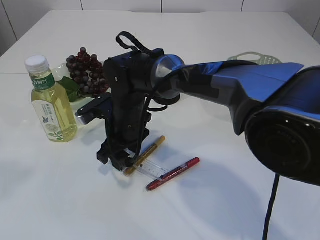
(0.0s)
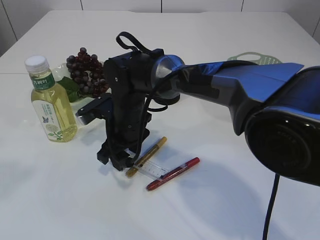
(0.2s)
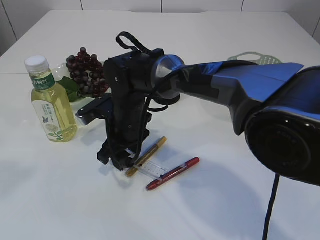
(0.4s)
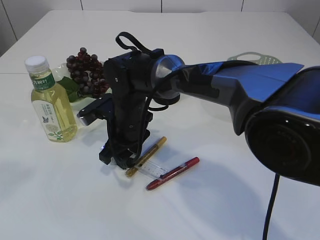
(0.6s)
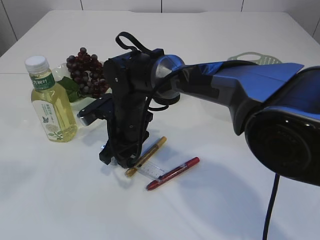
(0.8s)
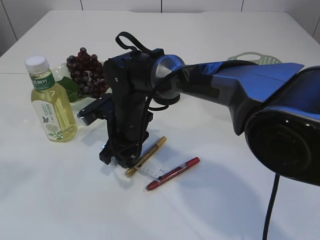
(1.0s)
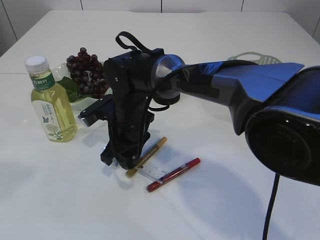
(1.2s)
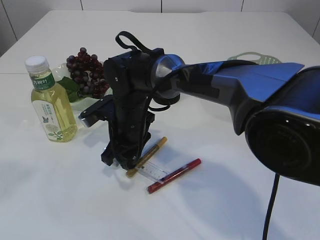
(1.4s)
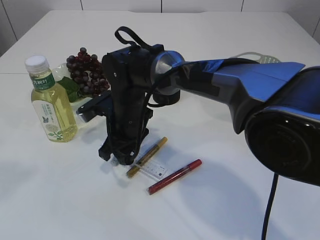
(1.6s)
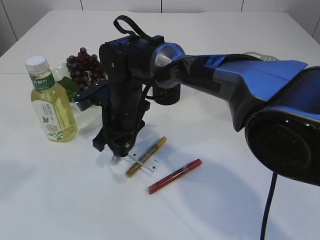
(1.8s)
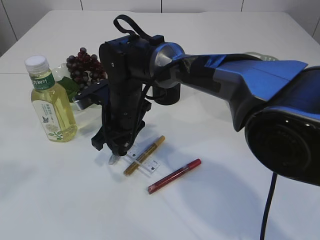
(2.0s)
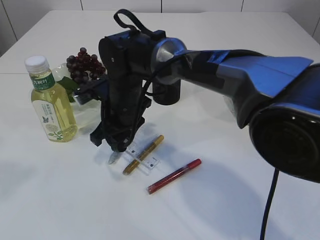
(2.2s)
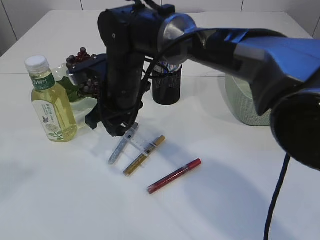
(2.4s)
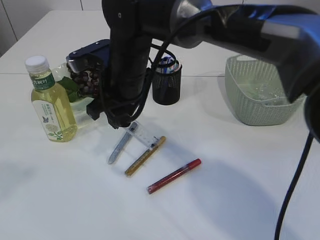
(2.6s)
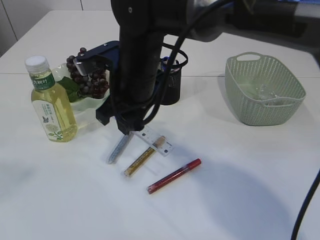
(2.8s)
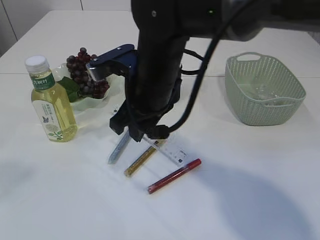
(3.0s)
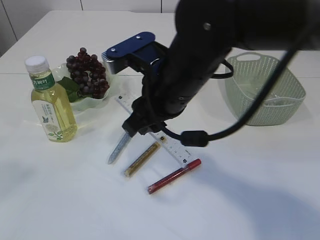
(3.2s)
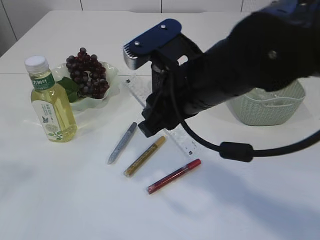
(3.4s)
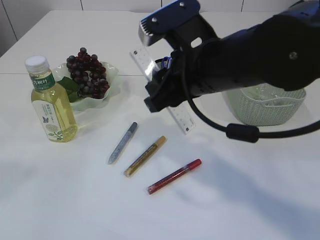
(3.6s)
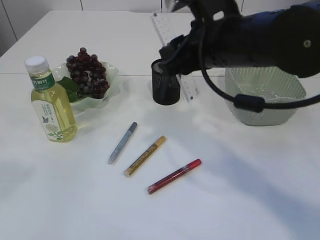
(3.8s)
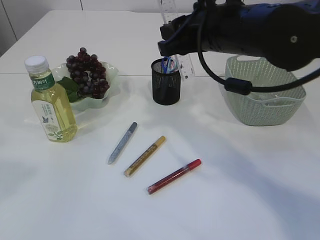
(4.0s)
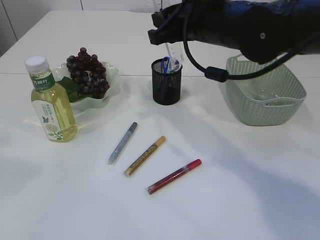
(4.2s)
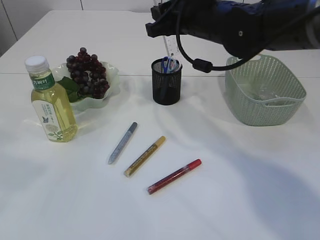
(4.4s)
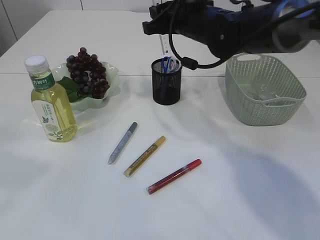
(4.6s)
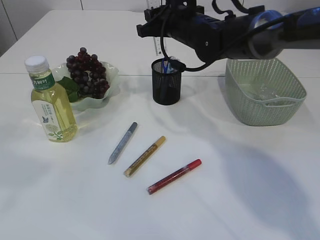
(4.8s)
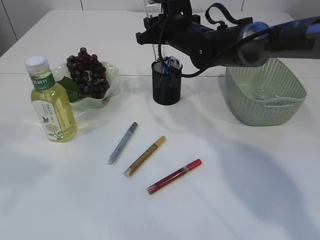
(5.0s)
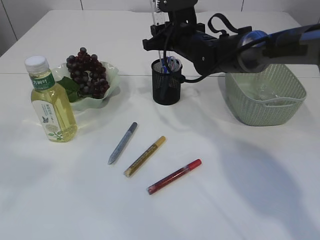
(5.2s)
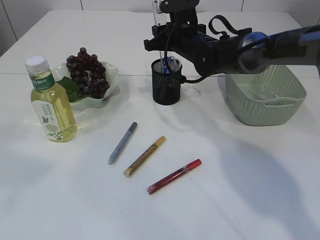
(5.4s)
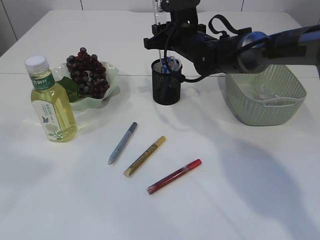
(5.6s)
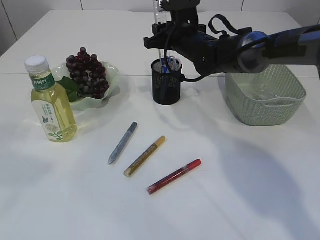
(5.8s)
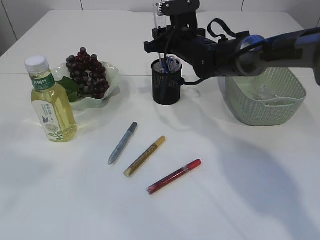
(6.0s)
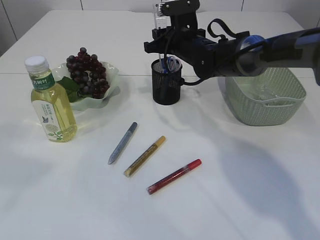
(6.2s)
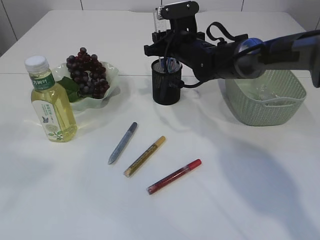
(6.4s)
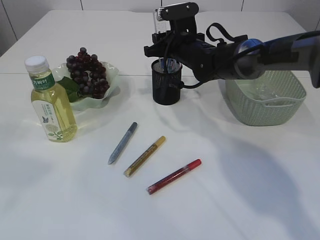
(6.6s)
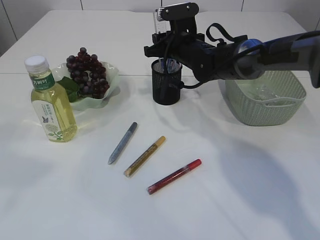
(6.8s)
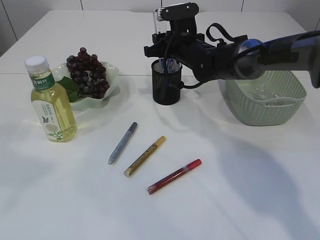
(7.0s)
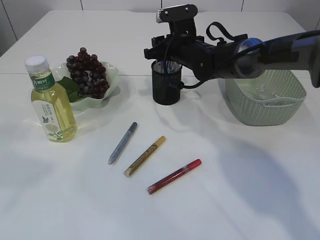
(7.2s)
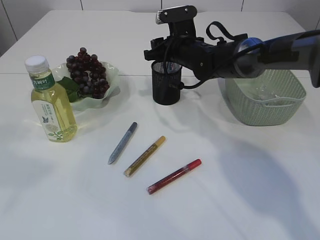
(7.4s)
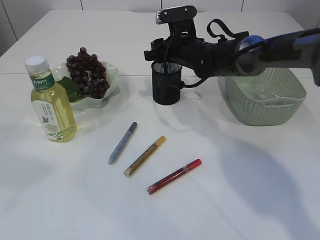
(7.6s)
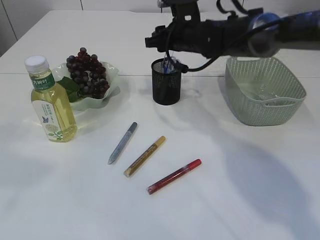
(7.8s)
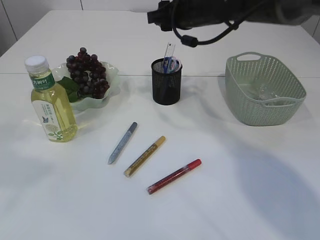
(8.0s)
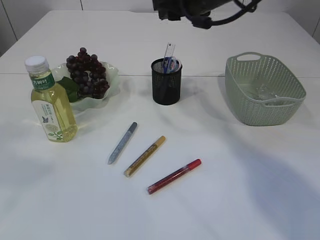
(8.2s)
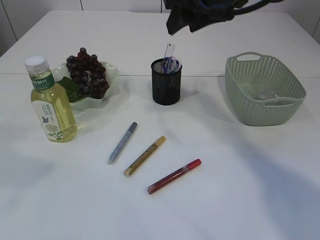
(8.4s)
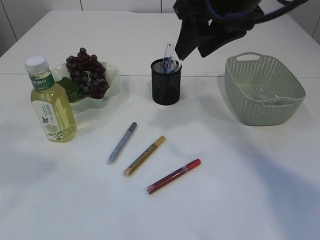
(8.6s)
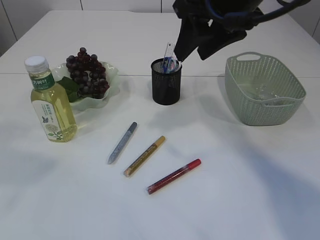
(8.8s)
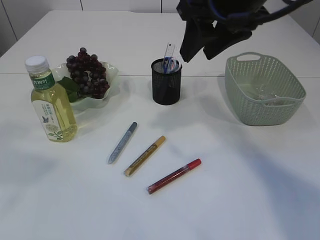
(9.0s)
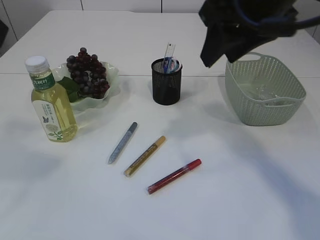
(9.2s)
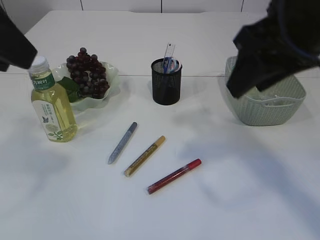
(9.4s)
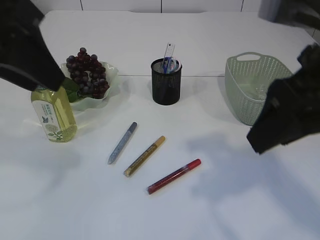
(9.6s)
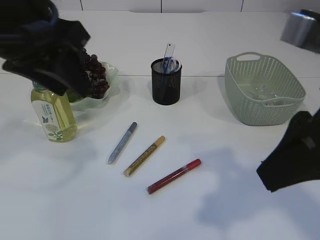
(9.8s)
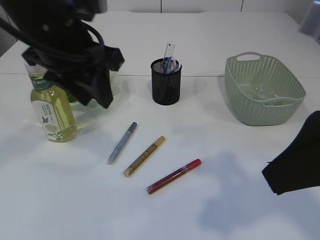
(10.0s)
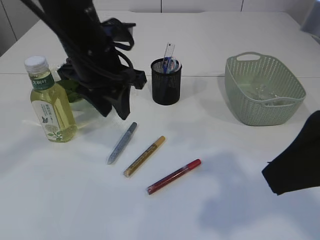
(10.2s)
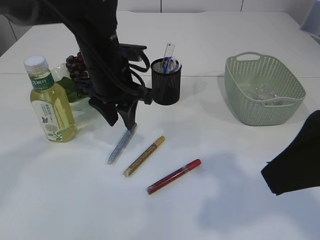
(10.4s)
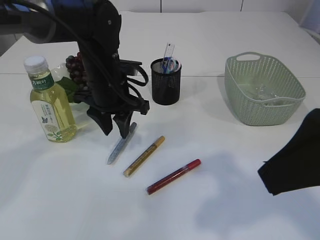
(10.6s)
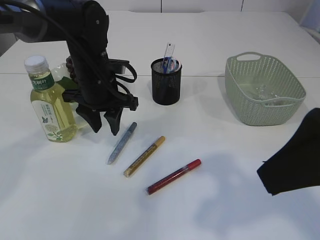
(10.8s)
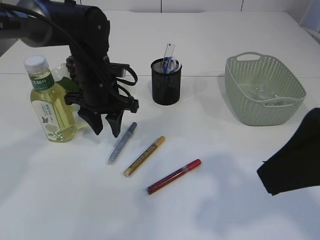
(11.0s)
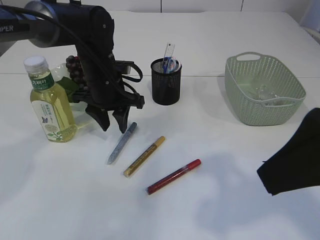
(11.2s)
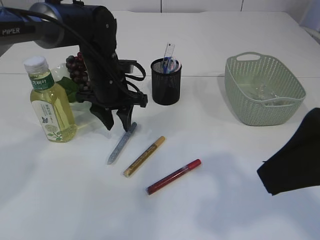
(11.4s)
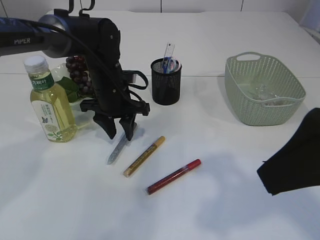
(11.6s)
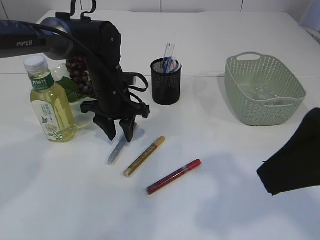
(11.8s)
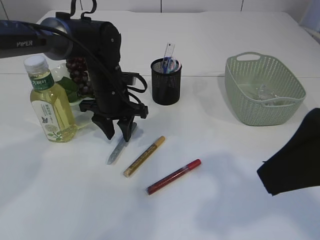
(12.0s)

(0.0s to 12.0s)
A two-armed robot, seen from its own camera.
Step, 0.0s - 2.4s: pick up the ruler.
Step, 2.6s - 8.0s: Place the ruler into the pen holder.
0.0s - 1.6s: Both grippers stay about where they are.
1.6s - 3.0s: The right gripper heads upward and backward, covering approximately 10 cm.
3.0s - 4.4s: The right gripper heads to the right and forward, covering approximately 10 cm.
4.4s - 6.0s: The right gripper moves forward and downward, about 15 cm.
6.0s - 7.6s: The grippers stay close to where they were, moving slightly.
7.6s - 9.0s: The right gripper shifts some 25 cm upward and backward.
9.0s - 10.4s: The left gripper heads downward, forward and to the right, covering some 30 cm; the right gripper travels backward by some 20 cm.
10.4s - 12.0s: The left gripper travels downward and forward by some 10 cm.

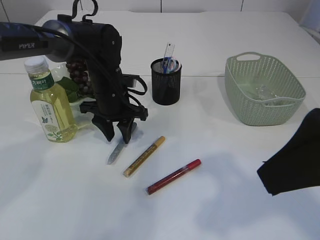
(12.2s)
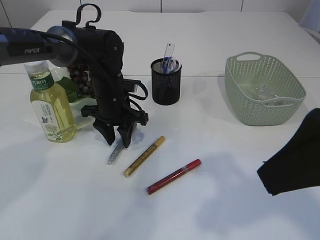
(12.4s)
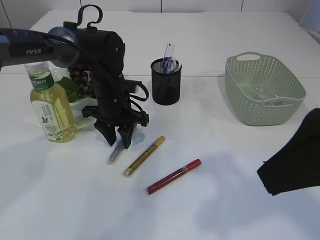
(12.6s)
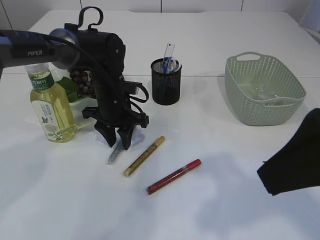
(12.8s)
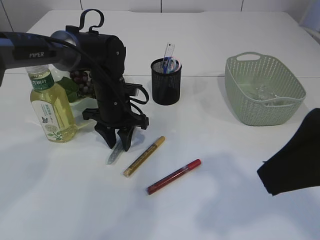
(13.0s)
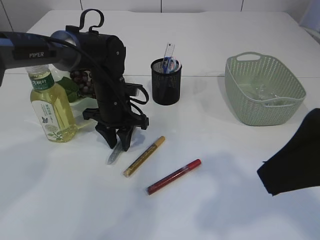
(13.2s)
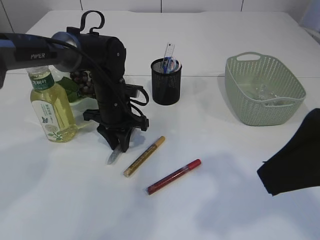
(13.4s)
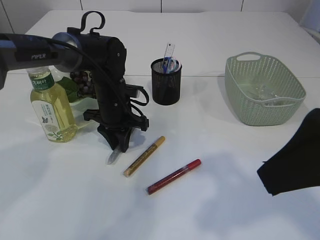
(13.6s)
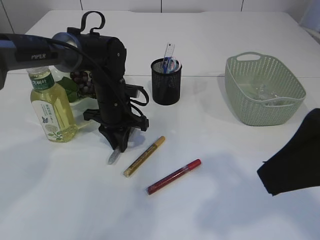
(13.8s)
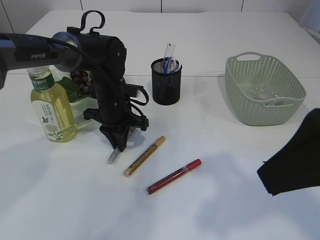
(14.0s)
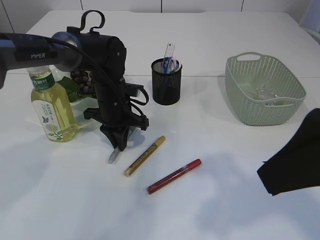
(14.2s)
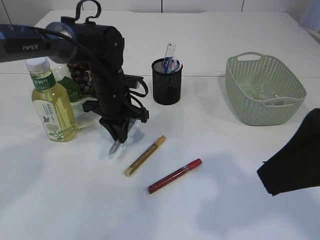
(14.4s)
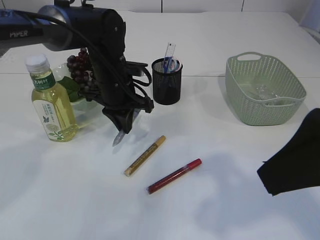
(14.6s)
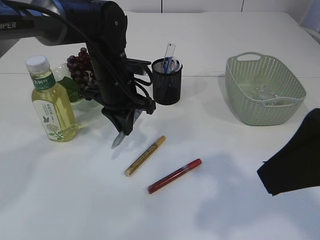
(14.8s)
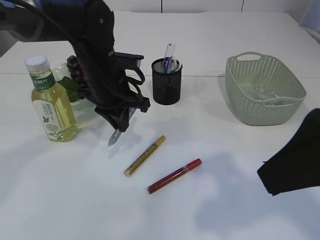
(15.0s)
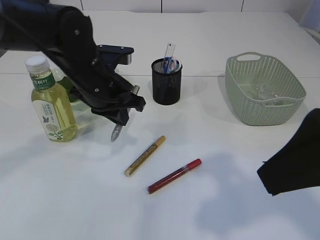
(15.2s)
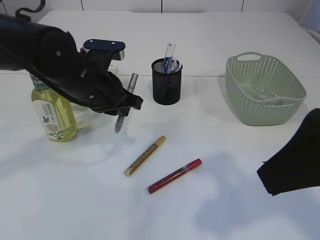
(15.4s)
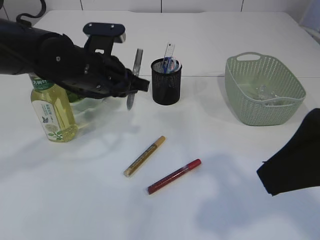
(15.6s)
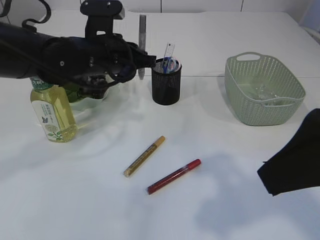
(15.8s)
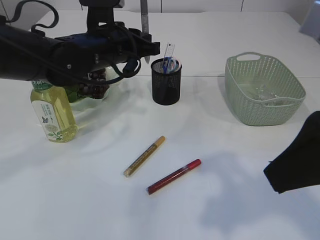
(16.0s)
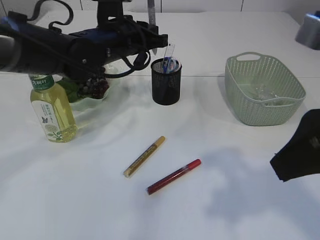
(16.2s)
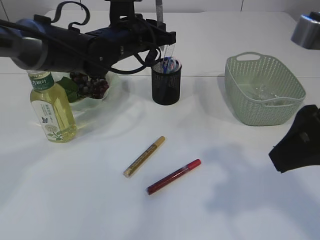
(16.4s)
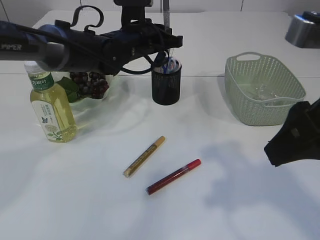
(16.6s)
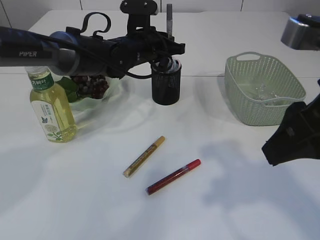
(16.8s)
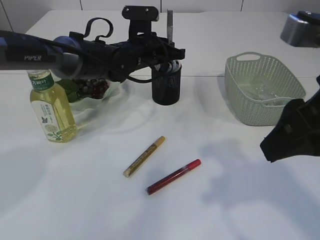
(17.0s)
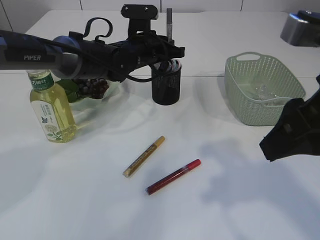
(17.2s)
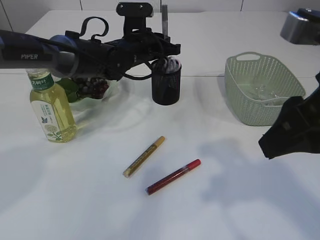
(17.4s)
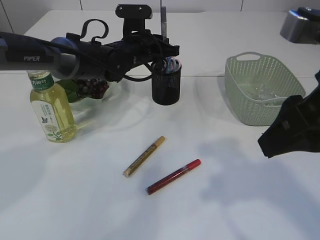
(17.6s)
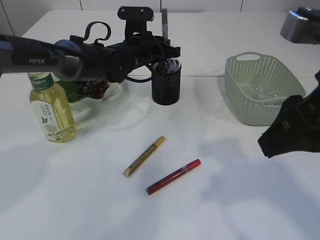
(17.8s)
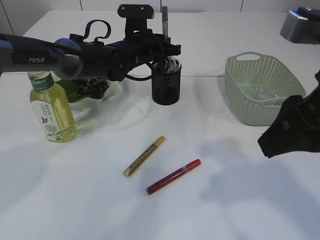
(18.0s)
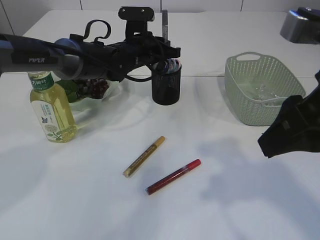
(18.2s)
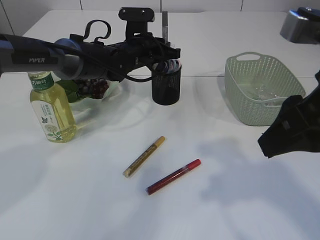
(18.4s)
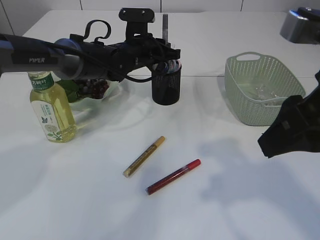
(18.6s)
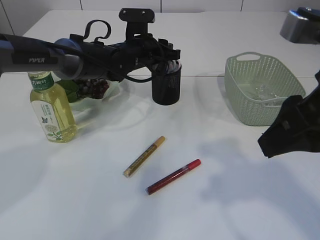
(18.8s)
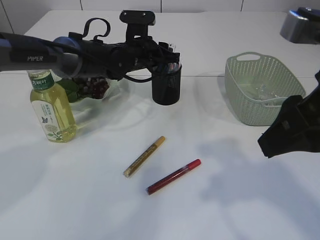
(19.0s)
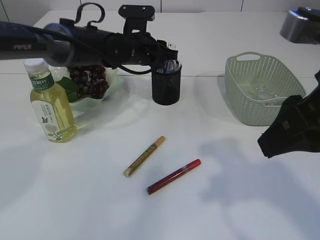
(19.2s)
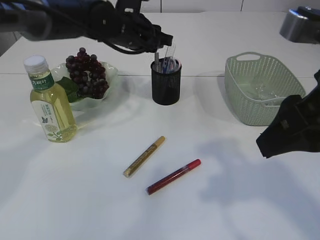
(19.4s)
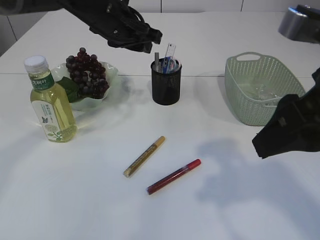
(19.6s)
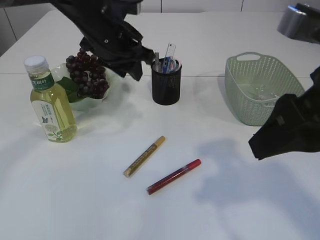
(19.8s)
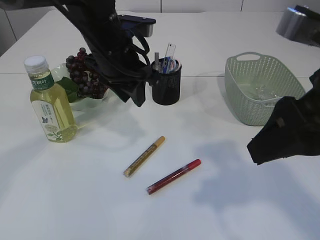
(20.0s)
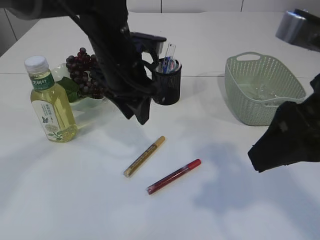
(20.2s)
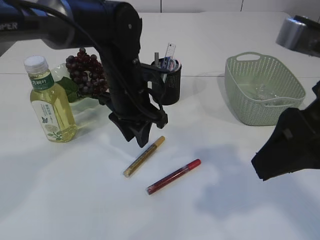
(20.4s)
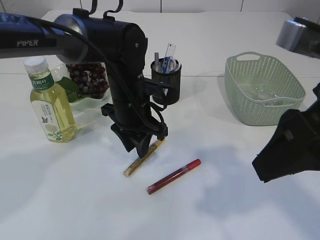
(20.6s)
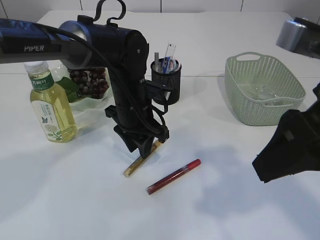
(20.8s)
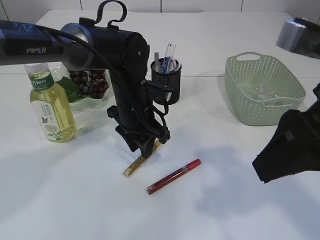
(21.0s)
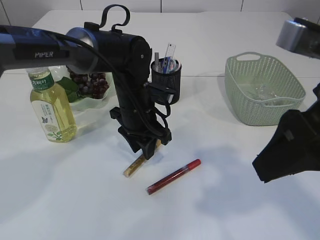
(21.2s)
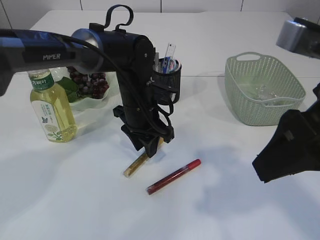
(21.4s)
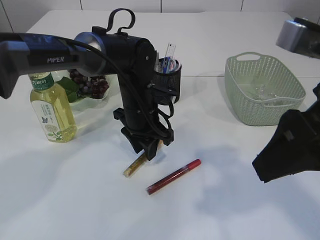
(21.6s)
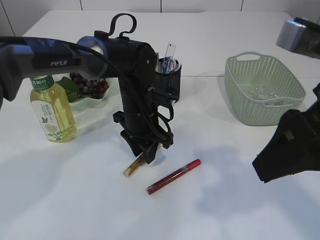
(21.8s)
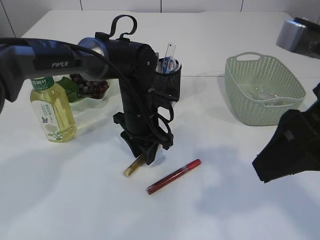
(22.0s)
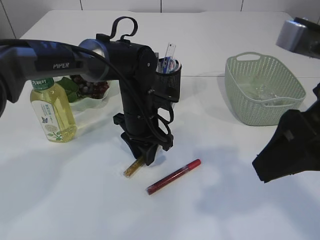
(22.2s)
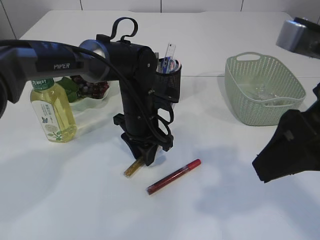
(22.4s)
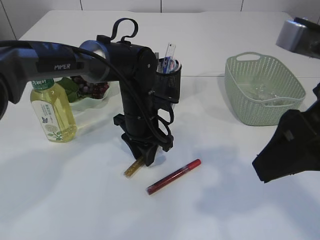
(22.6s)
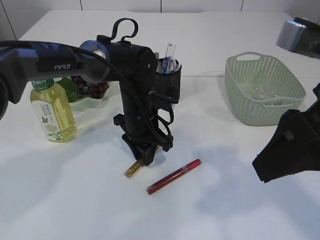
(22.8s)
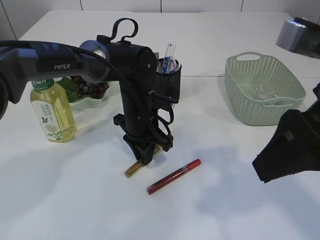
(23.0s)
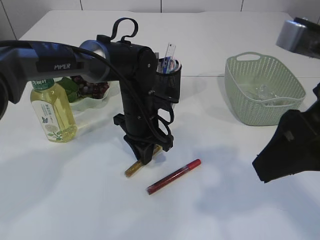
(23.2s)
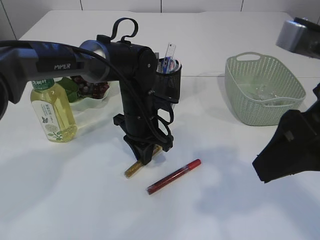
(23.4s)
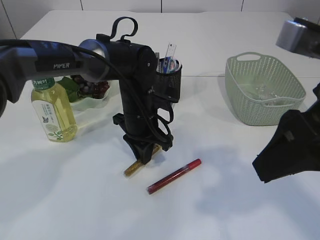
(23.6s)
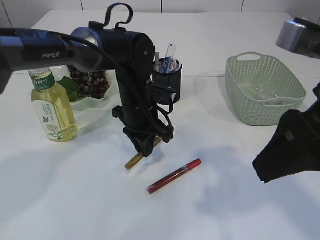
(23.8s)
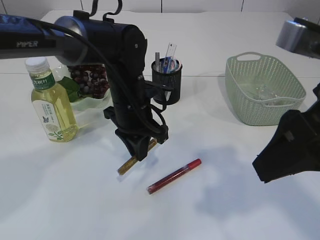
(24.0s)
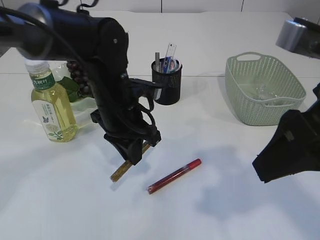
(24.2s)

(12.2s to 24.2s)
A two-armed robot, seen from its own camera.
Step, 12.2s - 15.0s: pick up the silver glue.
Step, 15.2s - 19.4s: place the silver glue into the pen holder.
12.2s - 13.8s: The left gripper closes its fingers.
13.8s - 15.2s: The left gripper goes approximately 10 cm upward and backward.
15.2s - 16.6s: The left gripper travels forward by roughly 10 cm.
16.6s - 18.2s: The grippers stay close to where they were, moving slightly.
18.2s - 19.8s: The left gripper shifts approximately 10 cm upward and backward, and opens its fingers.
19.8s - 21.2s: The left gripper is displaced downward by some 10 cm.
21.2s - 22.6s: The grippers move only a little.
22.6s - 24.2s: The left gripper is displaced upward and backward by approximately 10 cm.
